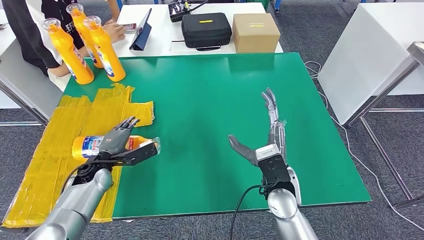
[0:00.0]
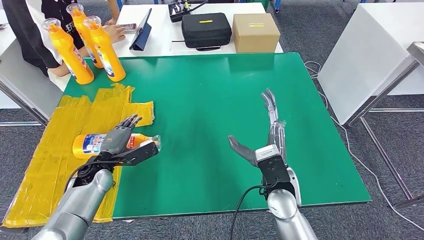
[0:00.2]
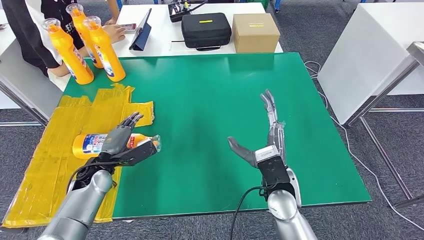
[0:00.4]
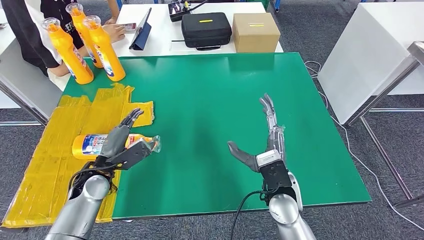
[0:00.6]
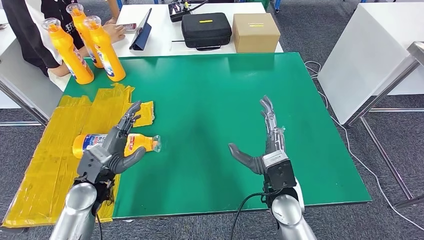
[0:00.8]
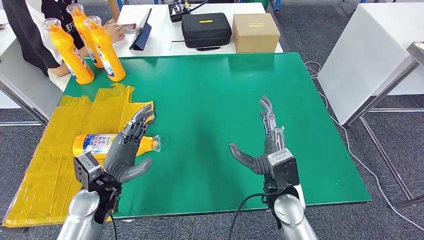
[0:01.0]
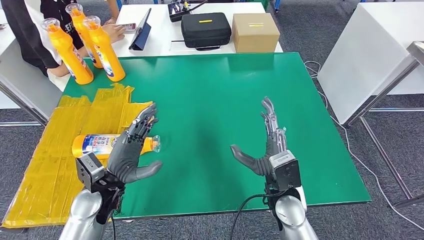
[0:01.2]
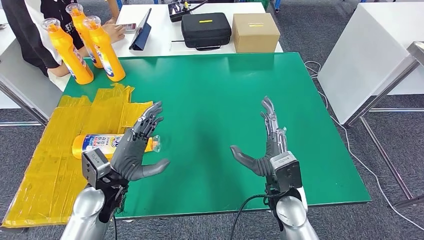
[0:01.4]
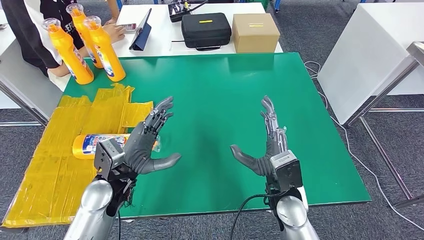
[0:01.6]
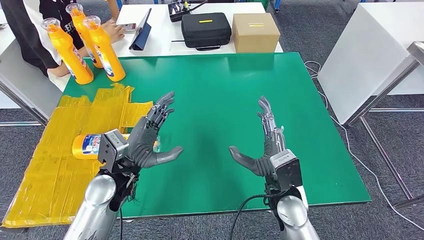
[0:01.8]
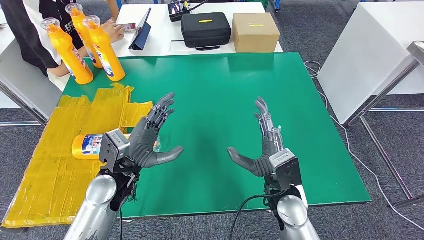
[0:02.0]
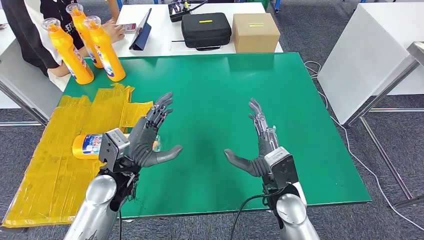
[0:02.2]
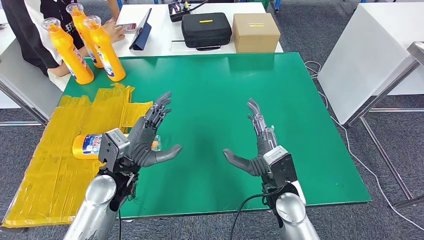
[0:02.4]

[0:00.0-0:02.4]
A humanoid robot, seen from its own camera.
Step, 0:00.0 to 0:02.4: Flip the bottle to face forward.
0:00.0 to 0:01.2: The left hand goes approximately 15 cm backward, upward and to the right.
0:01.2 to 0:02.4: There are only small adjustments of the hands.
